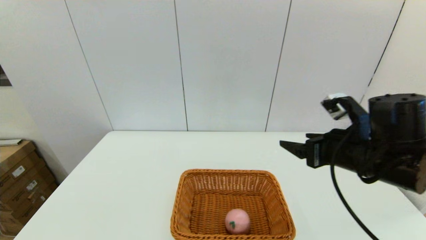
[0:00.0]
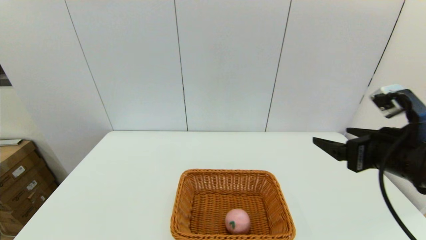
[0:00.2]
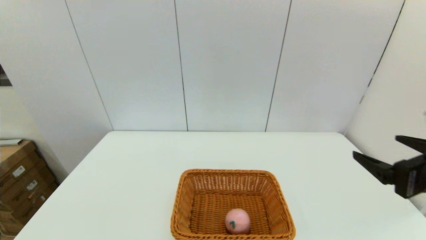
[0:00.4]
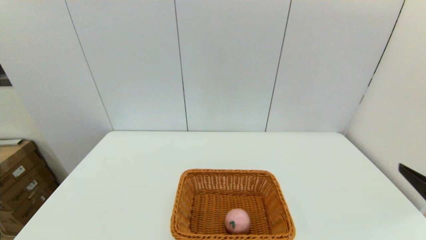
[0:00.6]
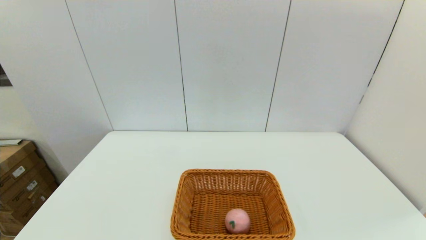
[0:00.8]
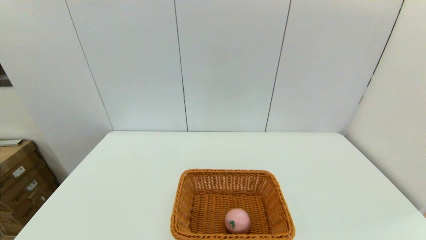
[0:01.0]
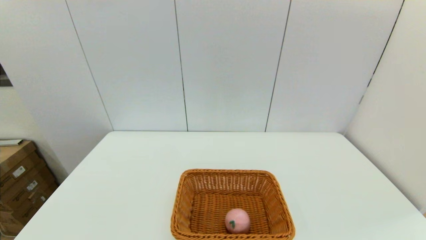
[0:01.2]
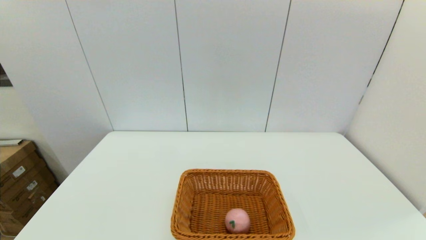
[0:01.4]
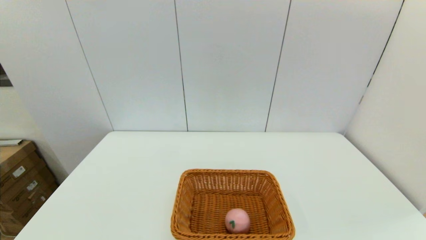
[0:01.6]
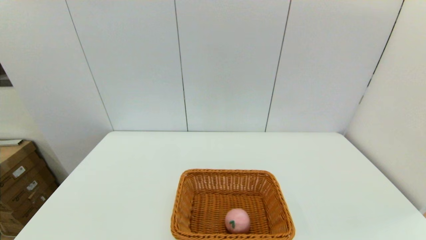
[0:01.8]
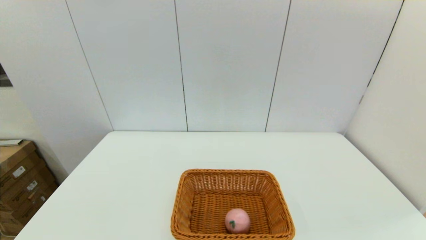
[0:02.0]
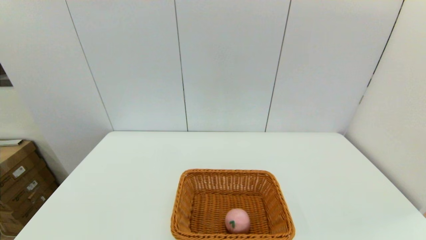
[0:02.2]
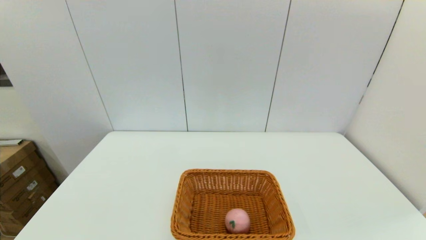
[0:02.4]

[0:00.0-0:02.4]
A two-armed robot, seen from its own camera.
0:00.0 to 0:01.2: The right gripper is displaced backward by approximately 25 cm.
